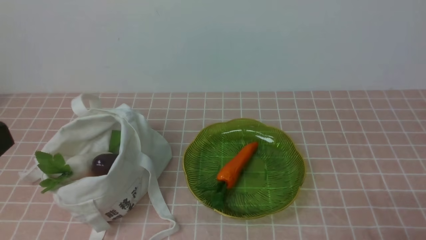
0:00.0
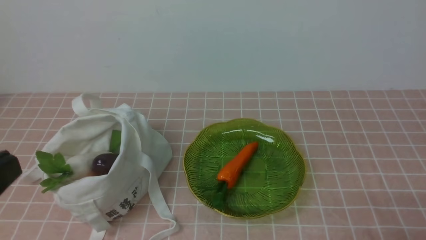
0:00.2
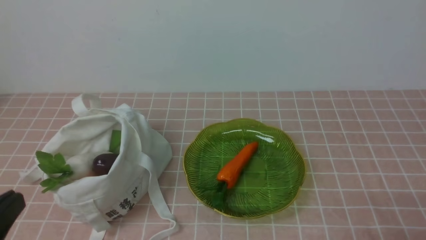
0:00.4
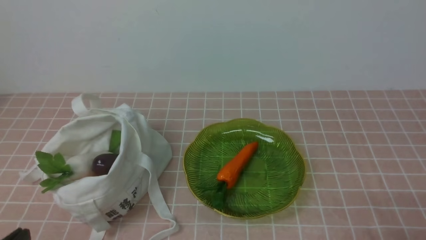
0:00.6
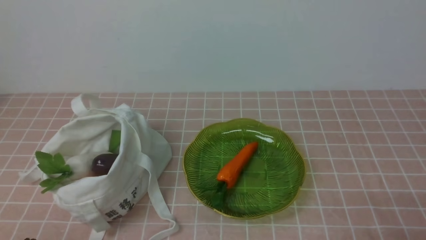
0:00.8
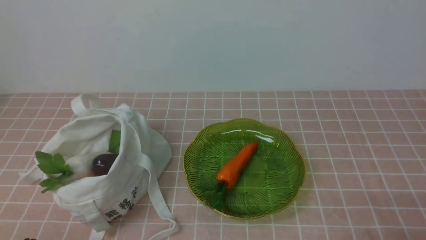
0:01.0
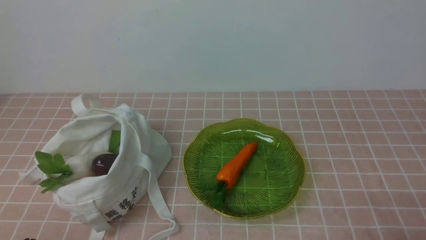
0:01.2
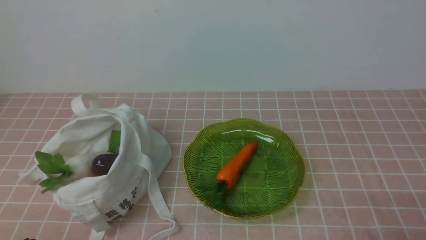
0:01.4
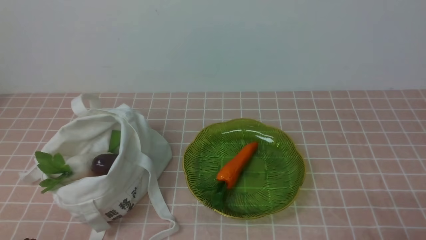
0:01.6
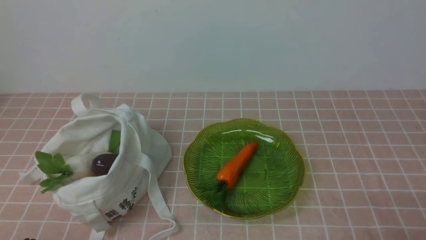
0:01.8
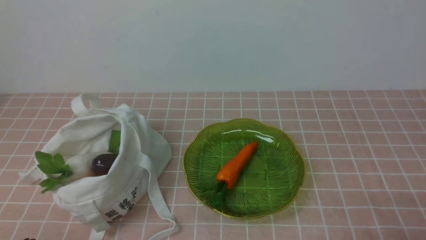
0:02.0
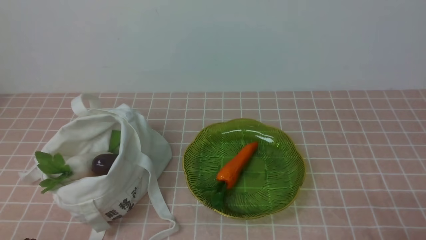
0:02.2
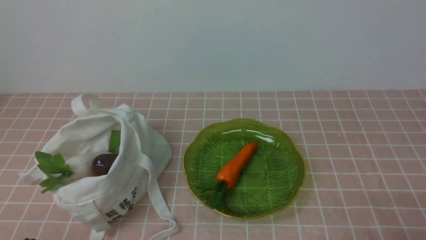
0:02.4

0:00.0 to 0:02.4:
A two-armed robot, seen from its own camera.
Task of the whole recording: take vegetables from bag on pink coffee tablecloth place on plate.
0:01.2 to 0:02.4: The two grippers keep their place.
